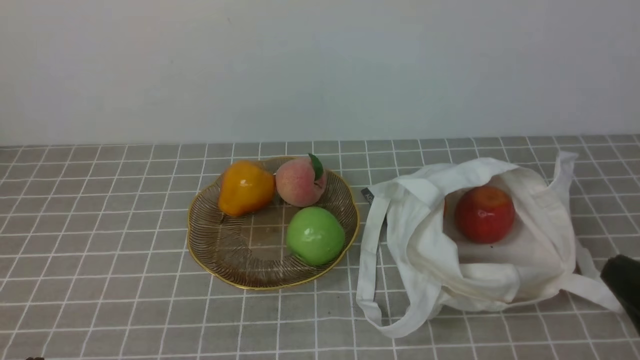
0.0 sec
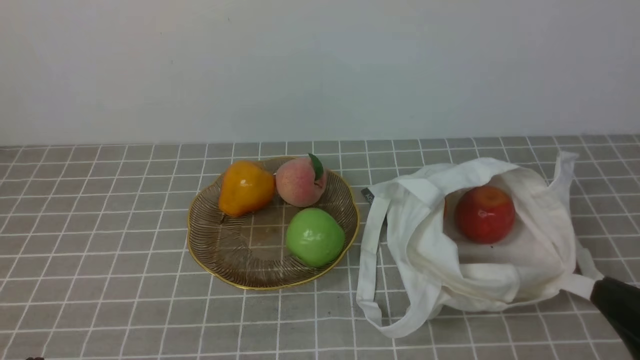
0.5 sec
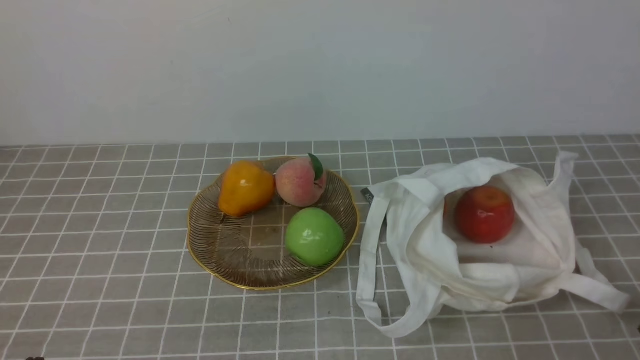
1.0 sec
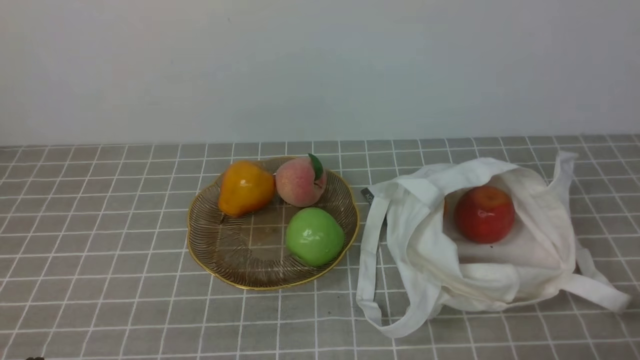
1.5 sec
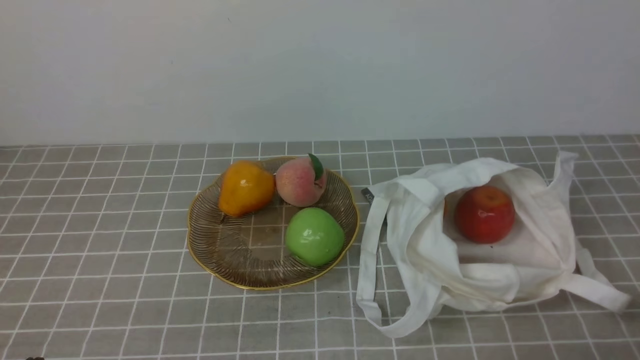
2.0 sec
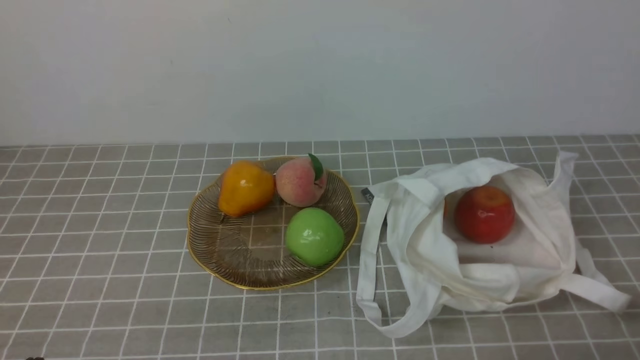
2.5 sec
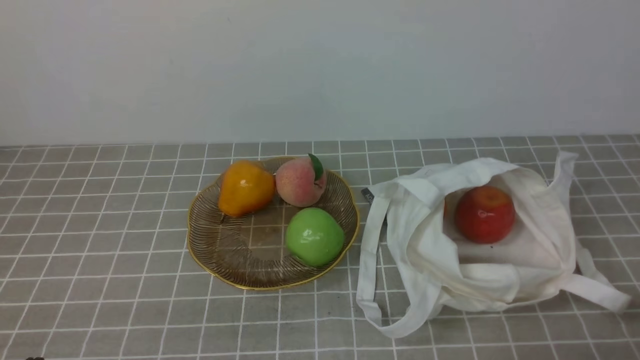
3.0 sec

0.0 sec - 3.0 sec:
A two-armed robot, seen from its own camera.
0.0 sec - 1.5 sec: The right gripper moves downward, some 5 cm.
1.5 sec - 3.0 sec: Both grippers stay about where they are.

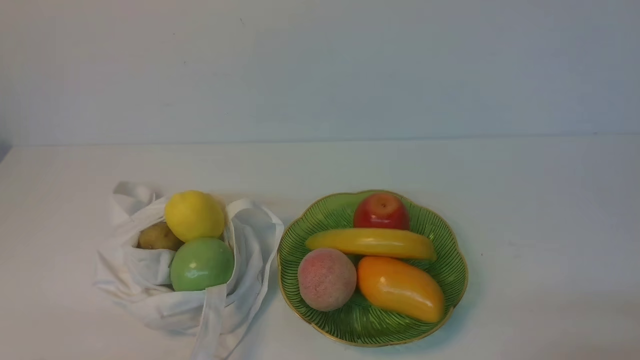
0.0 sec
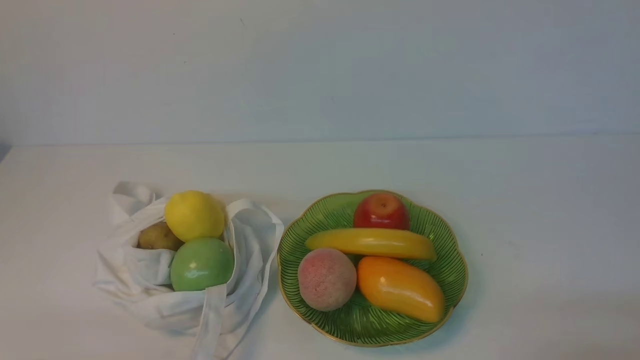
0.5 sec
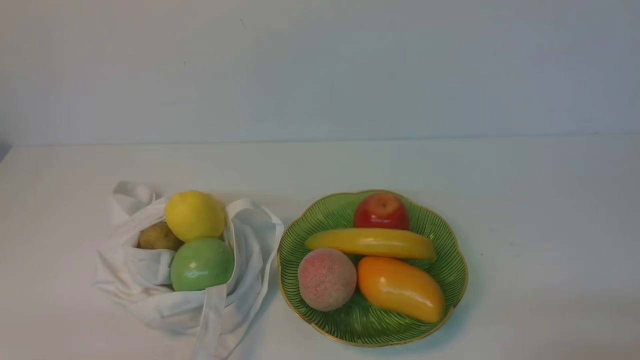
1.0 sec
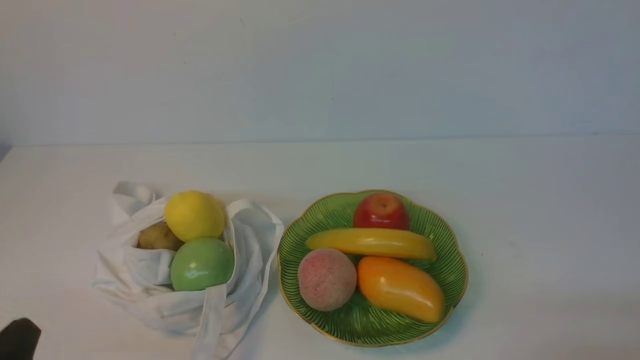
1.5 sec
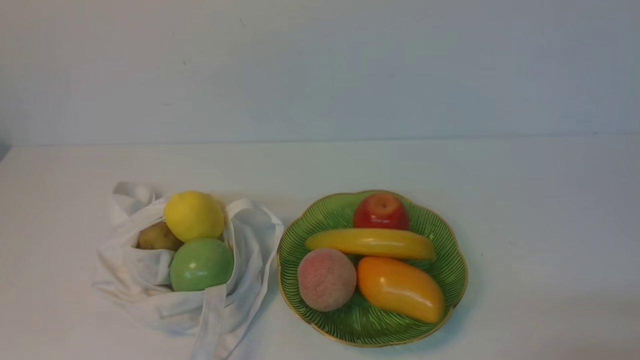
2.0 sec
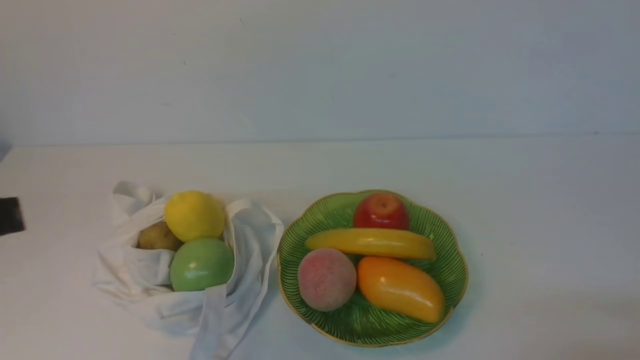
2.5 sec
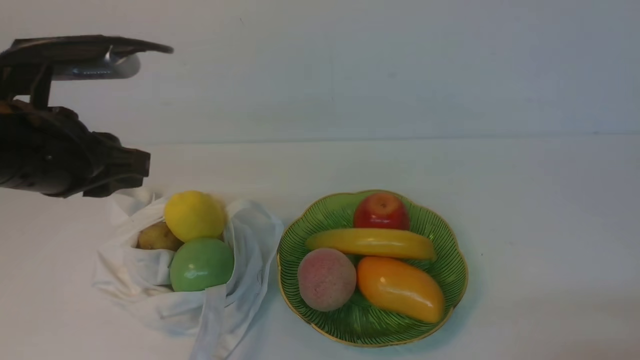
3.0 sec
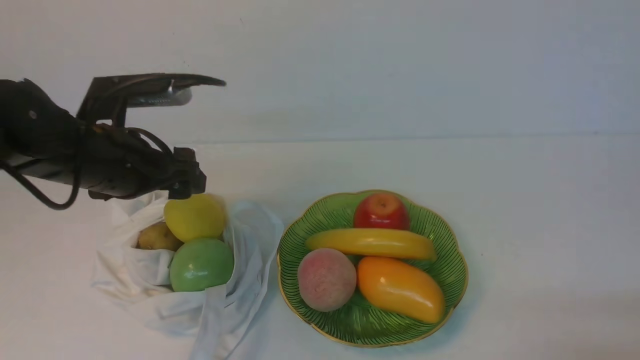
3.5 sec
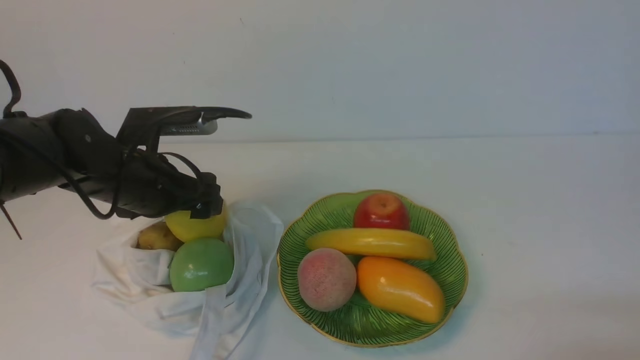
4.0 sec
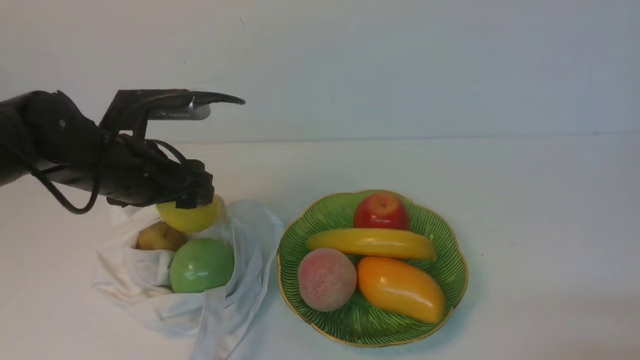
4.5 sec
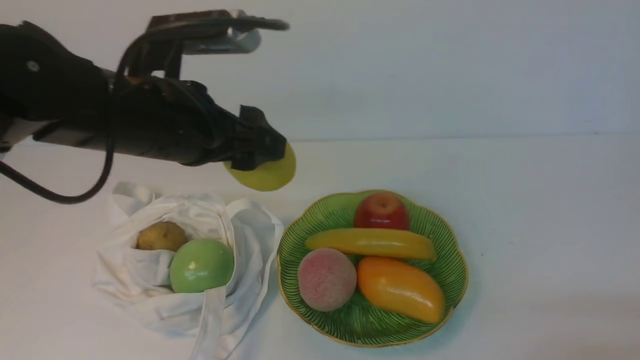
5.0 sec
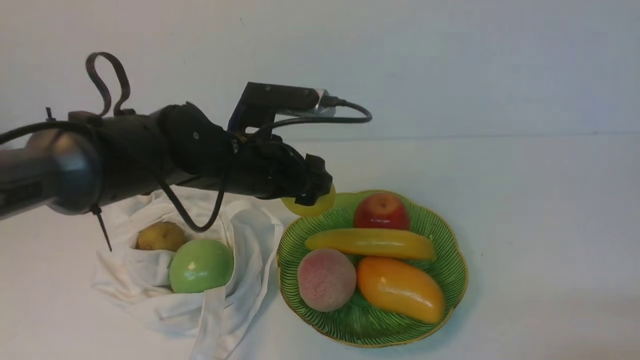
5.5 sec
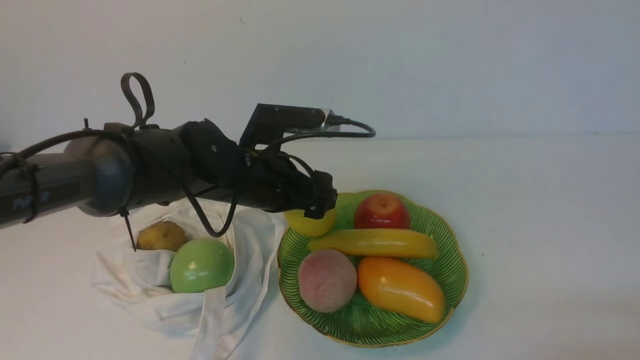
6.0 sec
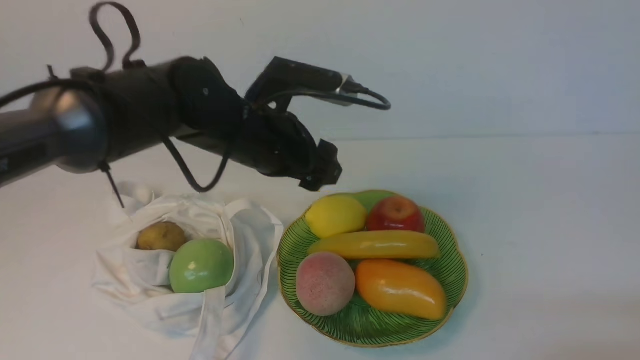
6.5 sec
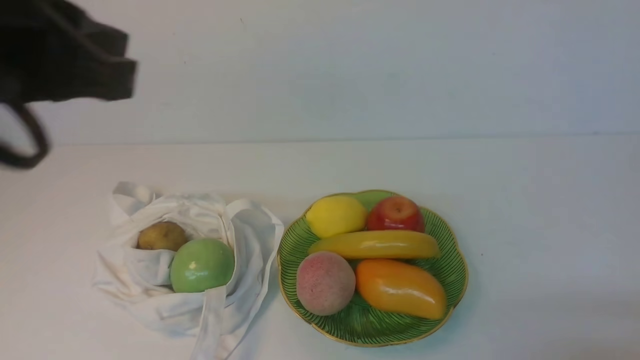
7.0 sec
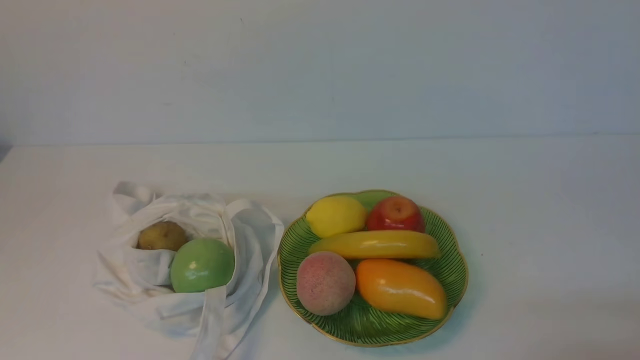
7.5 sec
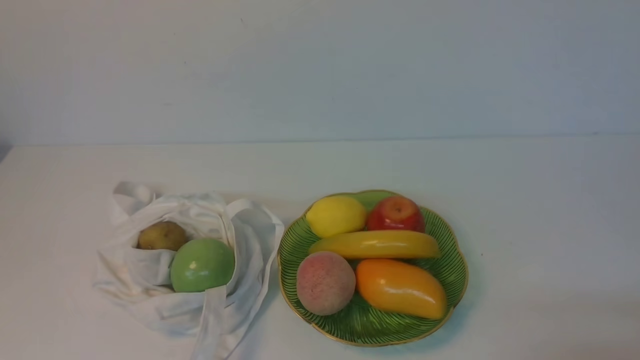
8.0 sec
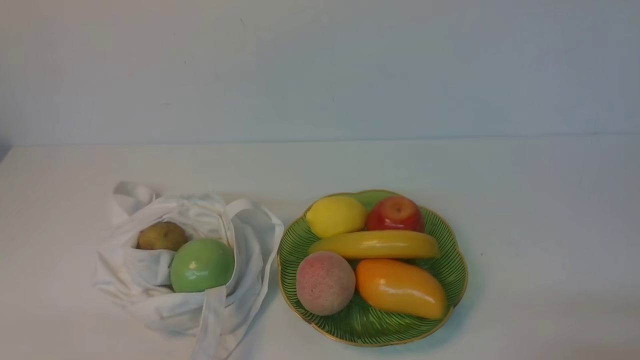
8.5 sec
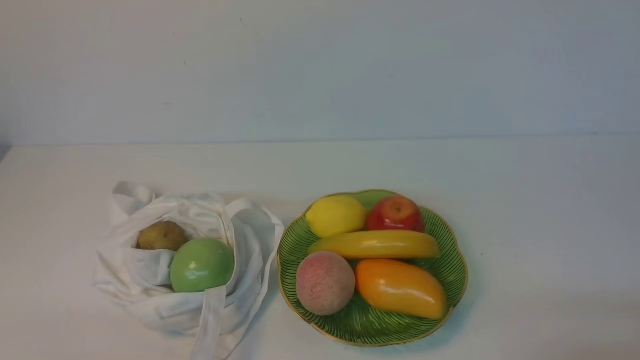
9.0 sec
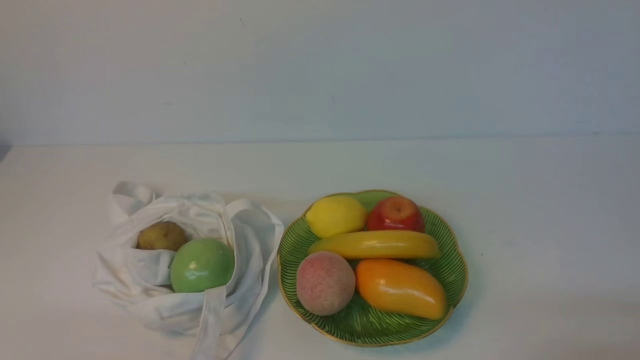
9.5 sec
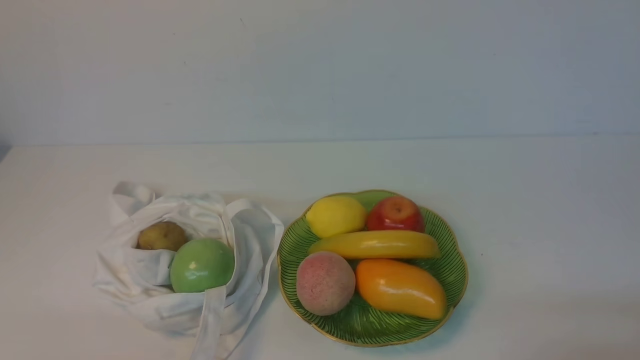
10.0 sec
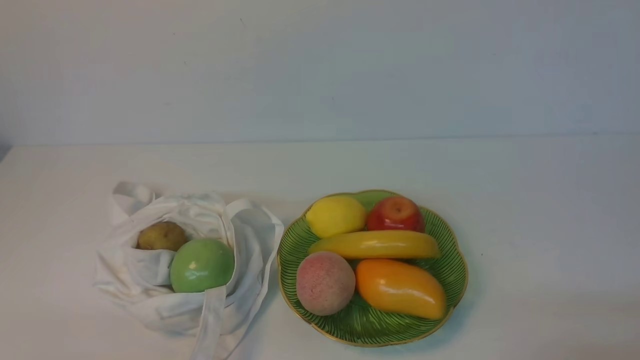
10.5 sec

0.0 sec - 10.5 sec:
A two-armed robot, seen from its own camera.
Step, 0.0 sec - 4.0 sec: use the left arm to grab a lemon from the bag.
Step, 4.5 sec - 6.0 sec: use the left arm to put the lemon into the empty plate on the right.
2.0 sec - 4.0 sec: The left gripper travels forward by some 30 cm, and opens up.
4.0 sec - 6.5 sec: The left gripper is displaced to the right and upward by roughly 15 cm.
6.5 sec - 8.5 sec: The left gripper heads backward and to the left, covering approximately 35 cm, and closes up.
8.5 sec - 10.5 sec: Both grippers stay about where they are.

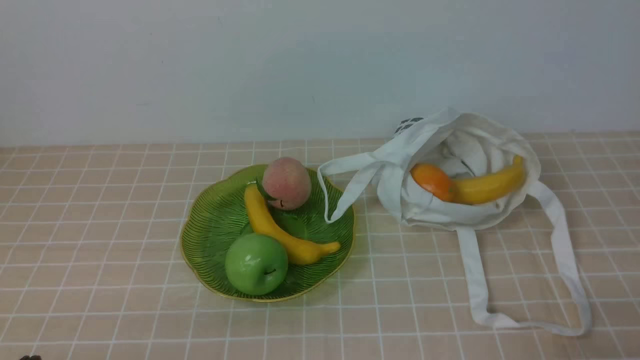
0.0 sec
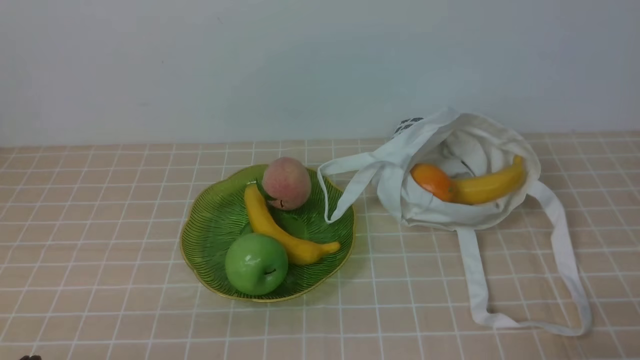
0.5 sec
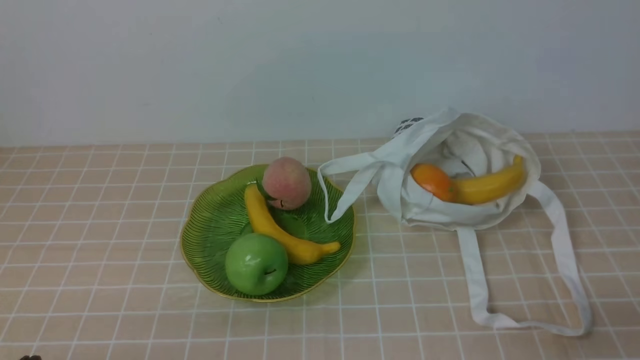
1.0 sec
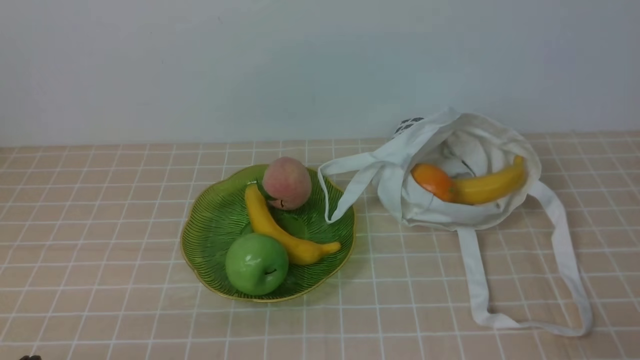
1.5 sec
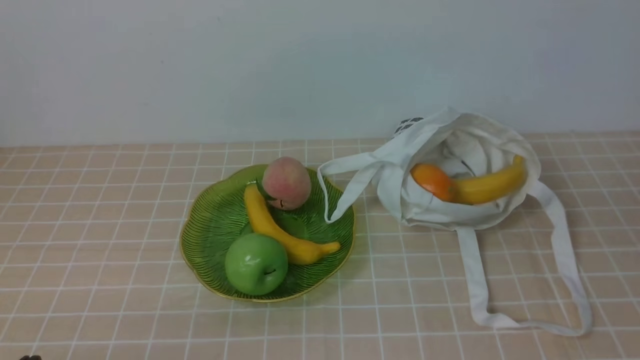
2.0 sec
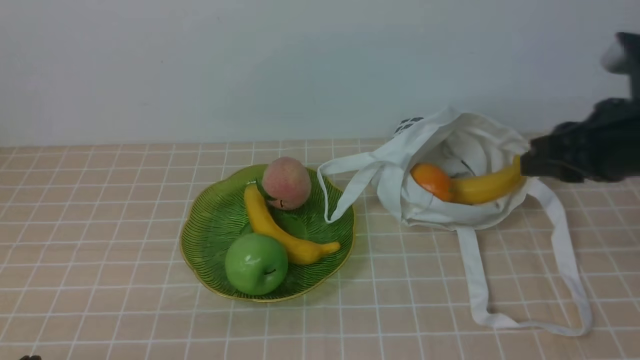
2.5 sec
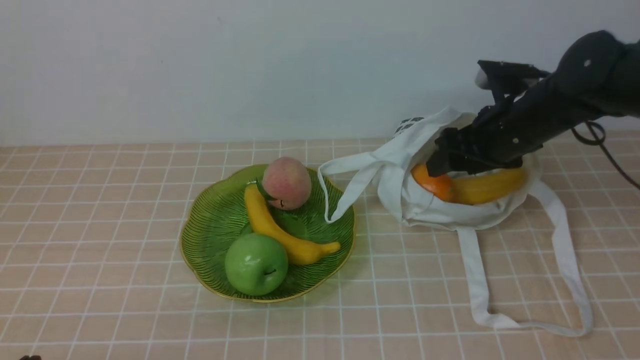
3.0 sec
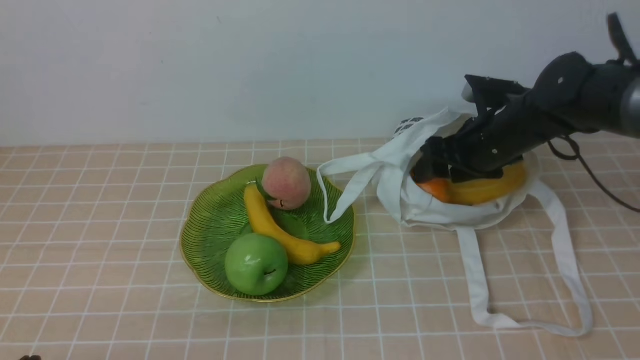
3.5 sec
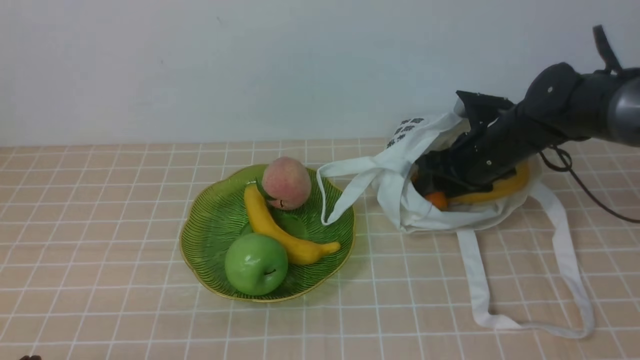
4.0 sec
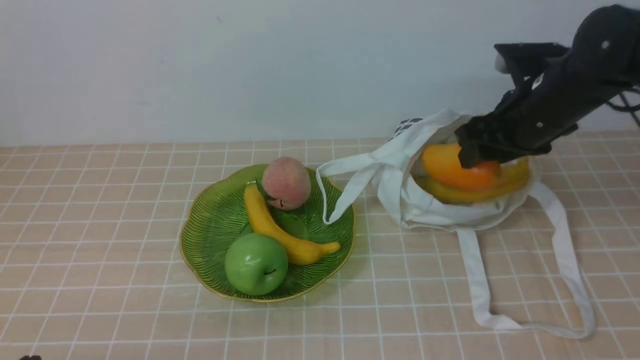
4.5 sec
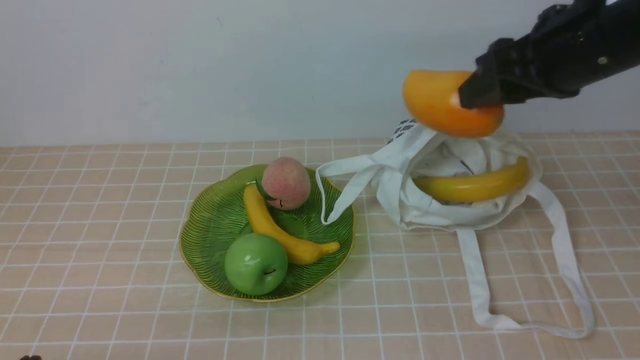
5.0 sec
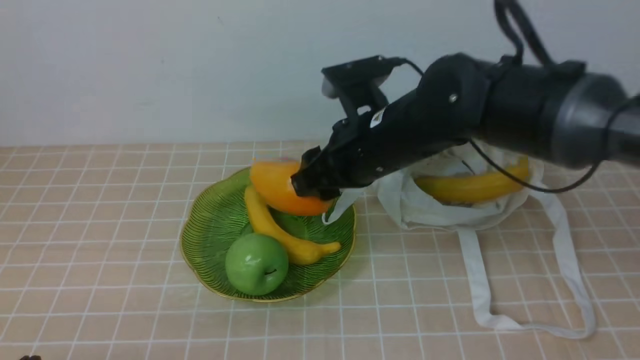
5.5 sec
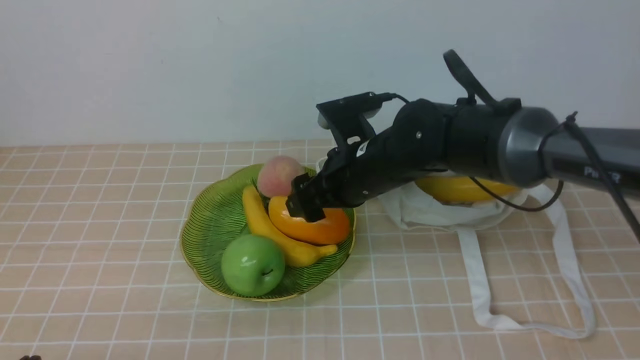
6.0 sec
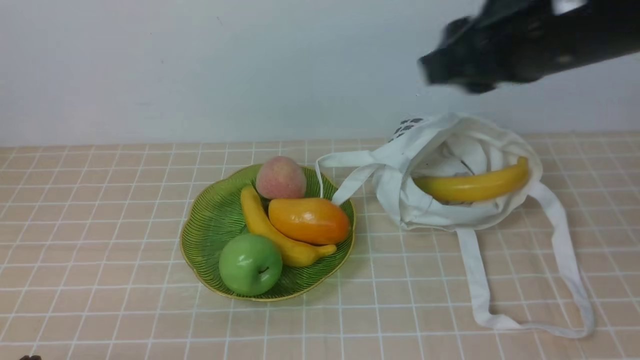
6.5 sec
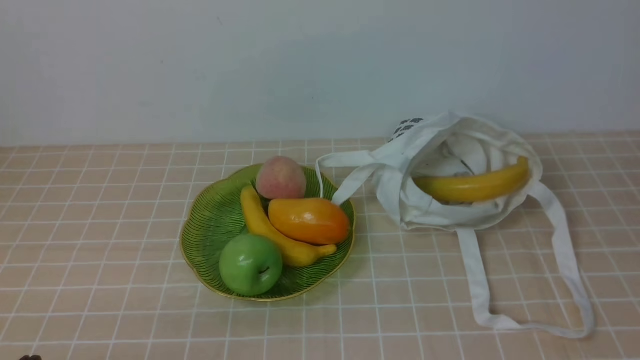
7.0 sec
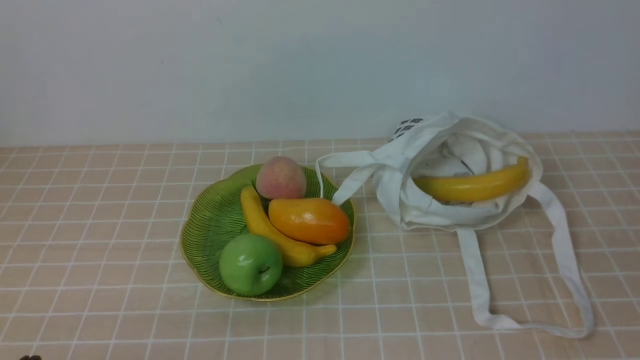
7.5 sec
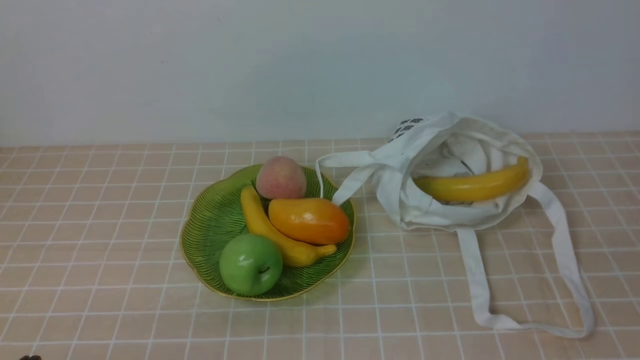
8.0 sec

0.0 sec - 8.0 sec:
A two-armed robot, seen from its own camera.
Step, 0.0 sec - 4.5 sec: use the right arm to grab a mango from the bag.
Step, 5.0 sec - 6.0 sec: use the right arm to put the mango into the empty plate on the left.
2.0 sec - 4.0 sec: The right gripper travels forward and downward by approximately 35 cm, and opens.
4.0 sec - 6.0 sec: The right gripper shifts roughly 15 cm to the left and backward.
6.0 sec - 8.0 sec: The right gripper travels backward and to the right by some 40 cm, and closes its fingers.
